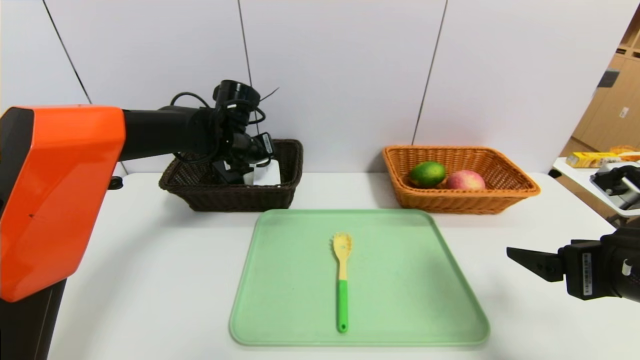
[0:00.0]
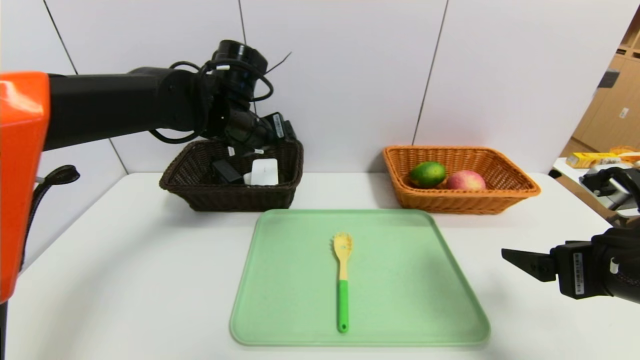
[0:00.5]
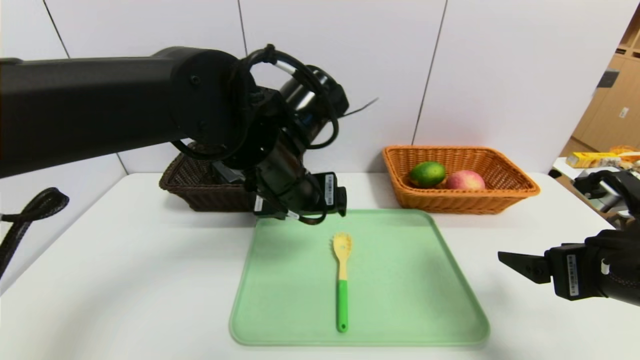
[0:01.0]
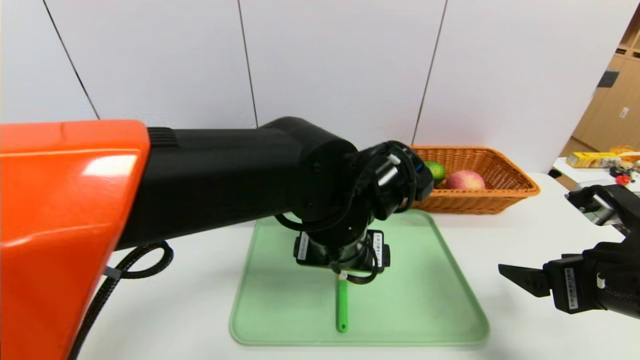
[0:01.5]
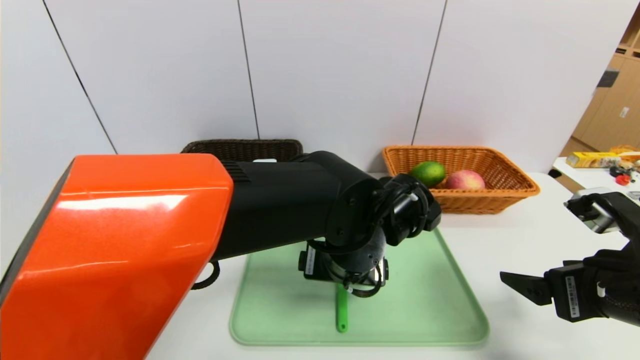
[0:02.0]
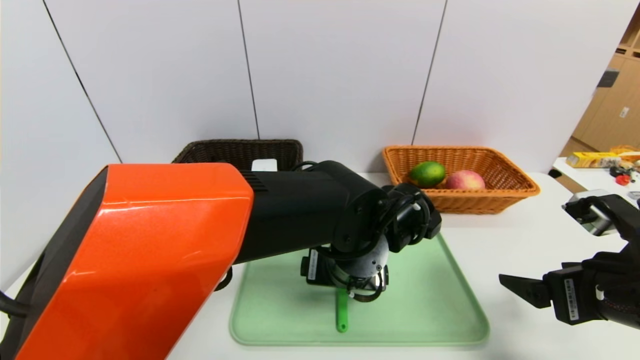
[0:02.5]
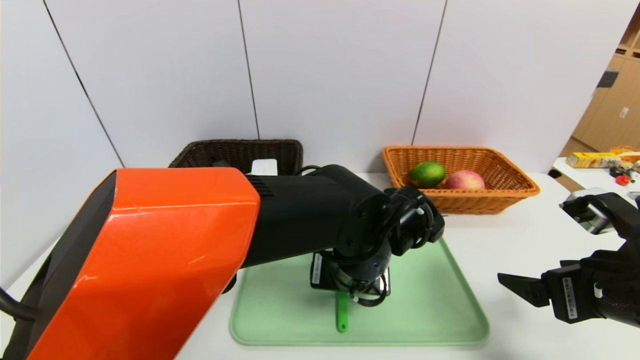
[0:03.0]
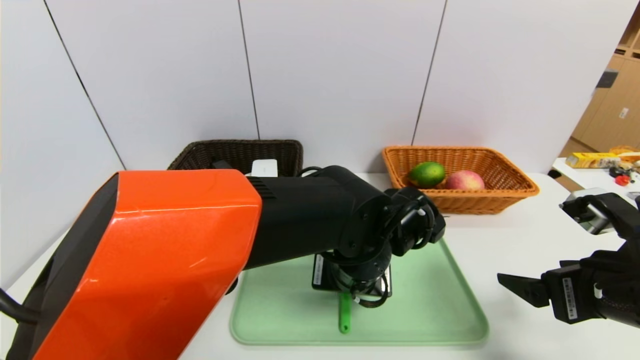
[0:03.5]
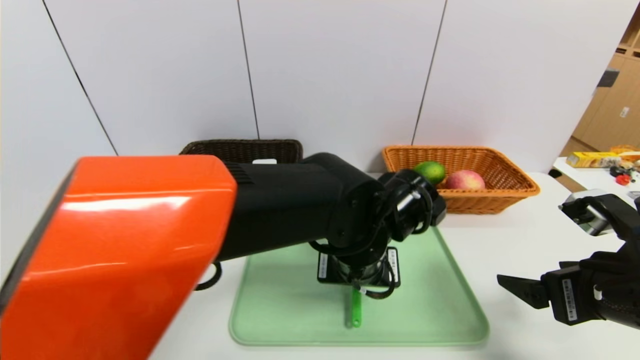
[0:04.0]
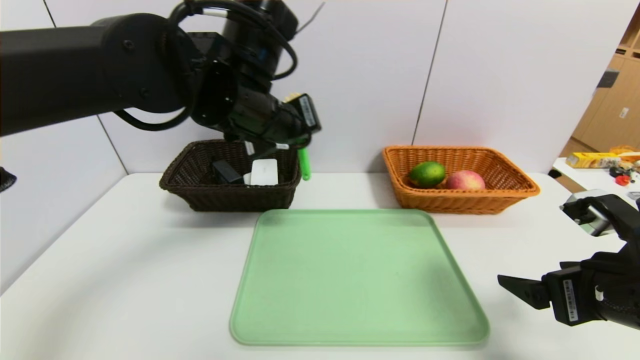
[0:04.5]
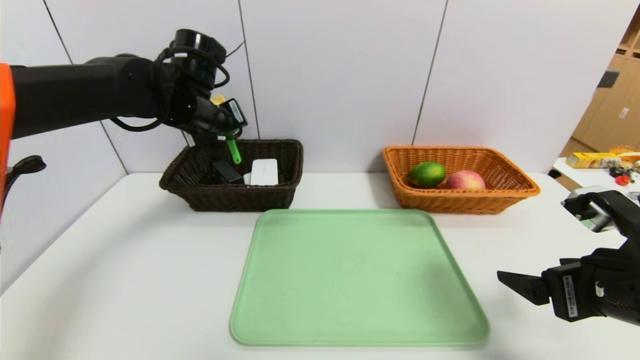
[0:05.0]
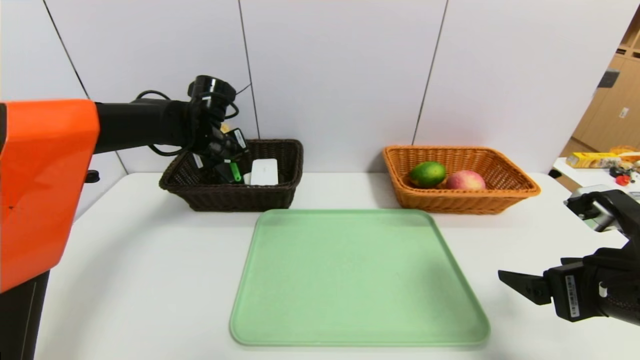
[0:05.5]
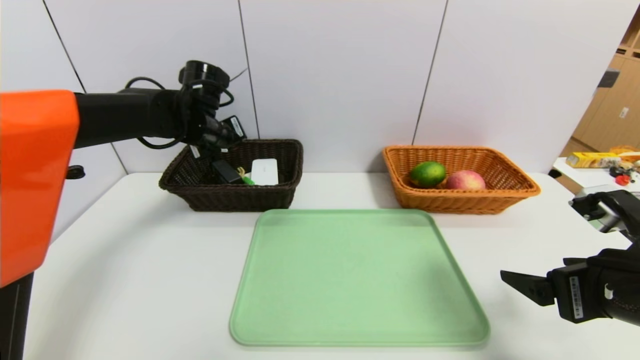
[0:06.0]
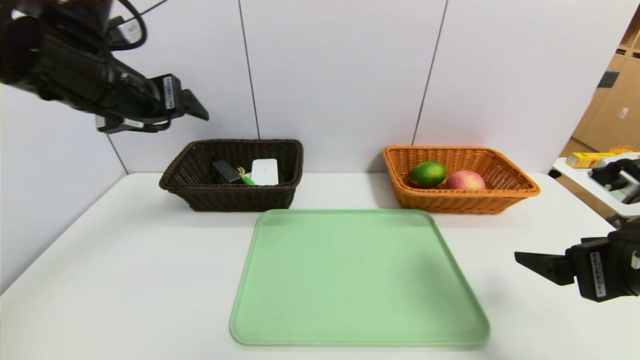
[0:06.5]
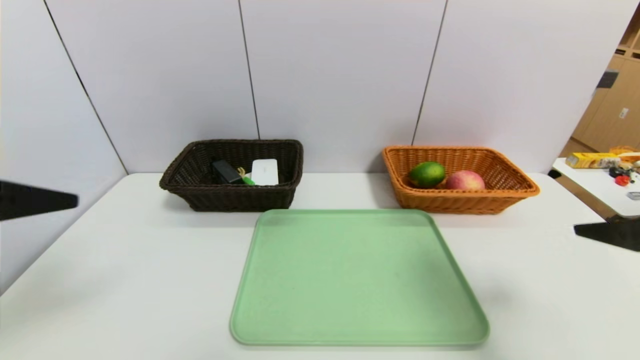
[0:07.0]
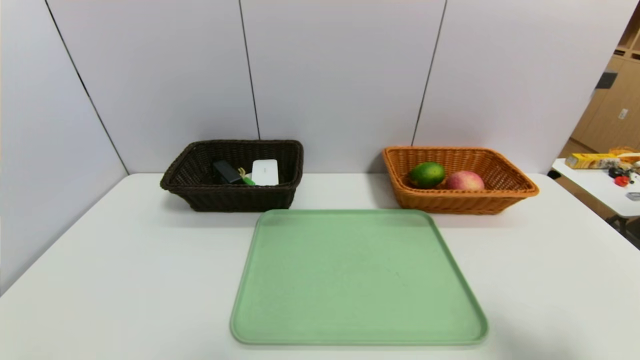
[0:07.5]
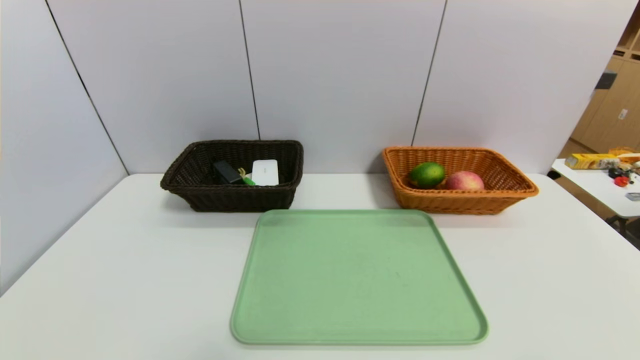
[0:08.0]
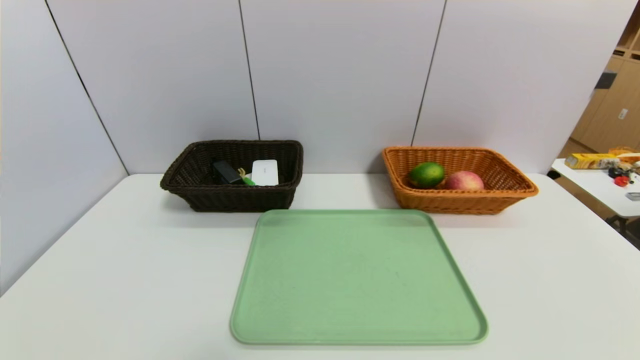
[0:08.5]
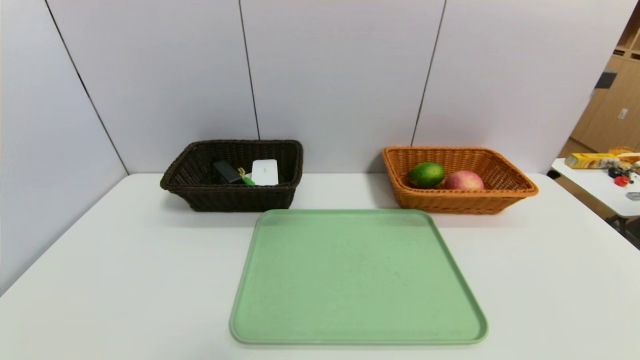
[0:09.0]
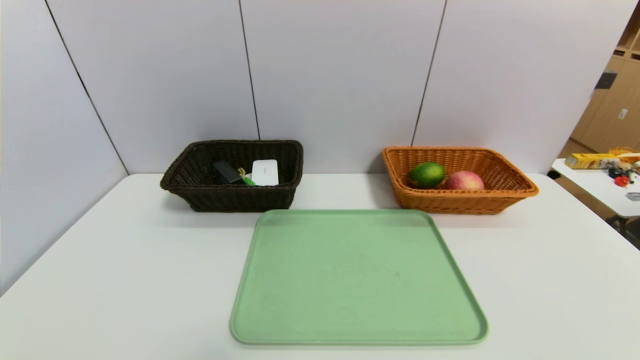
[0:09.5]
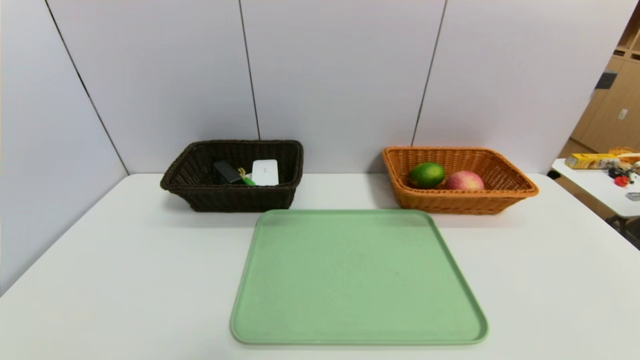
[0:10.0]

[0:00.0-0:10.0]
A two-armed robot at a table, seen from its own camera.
Task of the whole recording: place the food in the right basket with the right gripper, and place the non food items in the left basket with the left gripper.
Step, 0:01.0 to 0:06.5: Grasp the spoon and put it in the left basket.
0:00.0 to 0:02.0: The left gripper goes approximately 25 cm backward and to the right.
0:02.0 to 0:04.0: The left gripper closes.
0:04.0 to 0:06.0: The left gripper travels to the left and forward by approximately 30 cm, and opens.
0:06.0 to 0:08.0: The left gripper heads backward, covering approximately 50 cm, and opens. The right gripper moves backward, some 20 cm.
